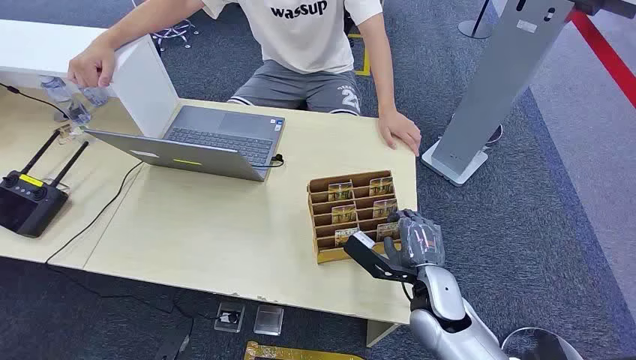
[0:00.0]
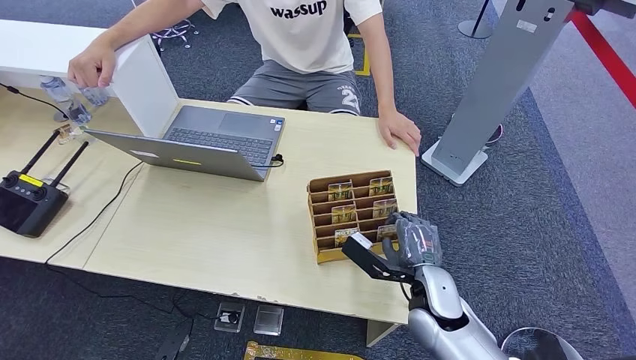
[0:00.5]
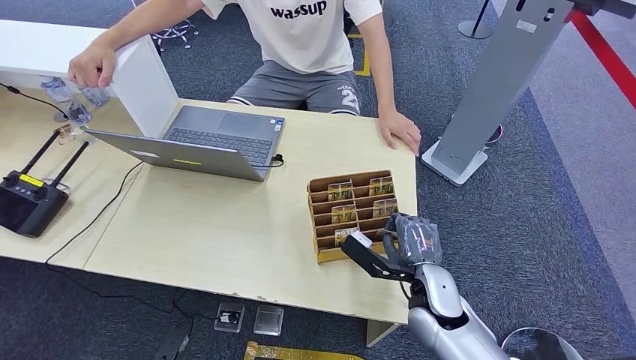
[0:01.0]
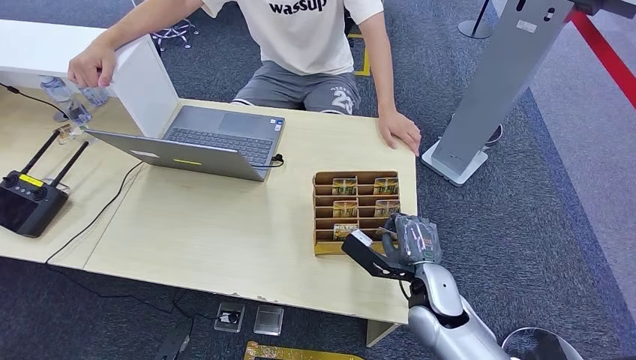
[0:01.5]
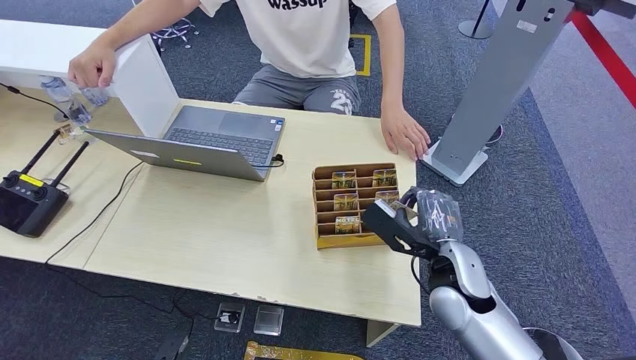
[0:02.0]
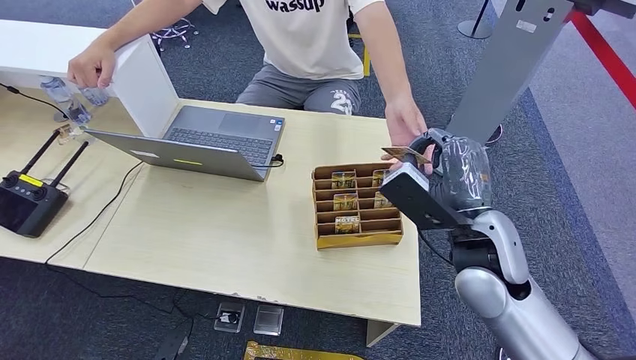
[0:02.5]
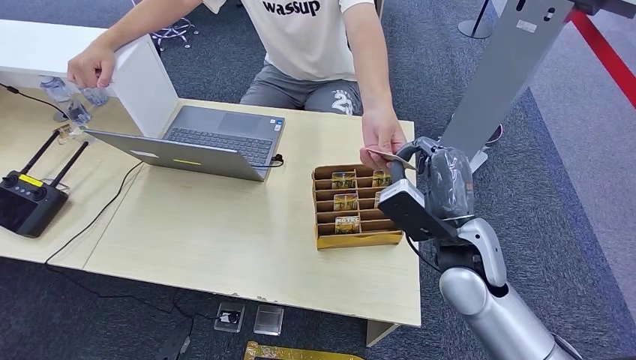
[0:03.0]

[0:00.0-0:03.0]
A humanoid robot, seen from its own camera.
Step, 0:00.0 to 0:02.0: Pick up the key card from the card box.
Step, 0:02.5 to 0:03.0: Hand the key card to the target.
0:01.5 to 0:03.0: The right hand is displaced upward by approximately 15 cm.

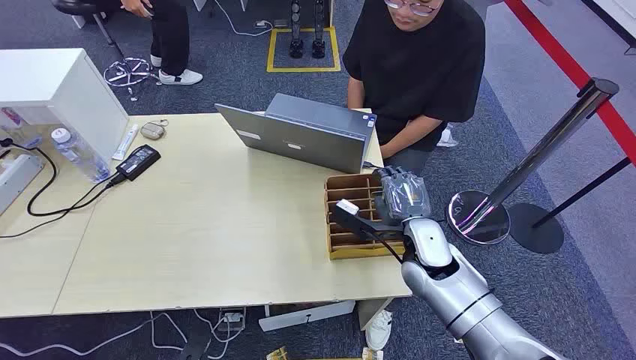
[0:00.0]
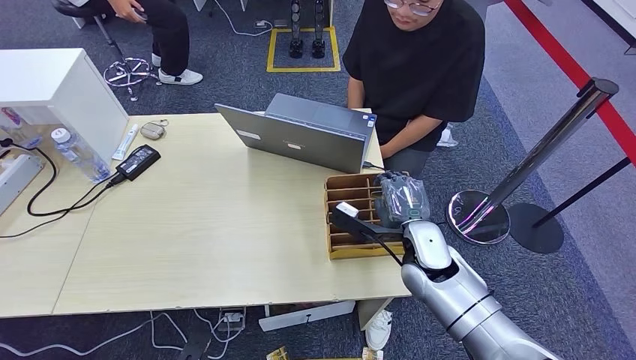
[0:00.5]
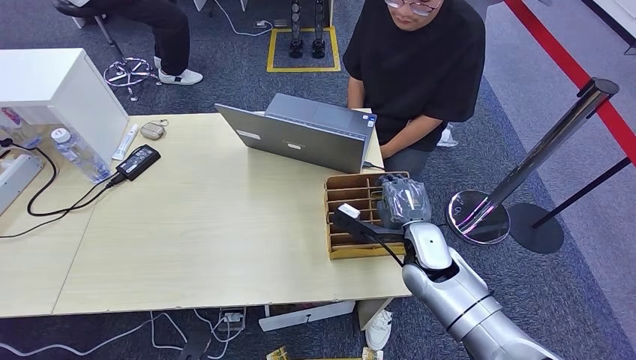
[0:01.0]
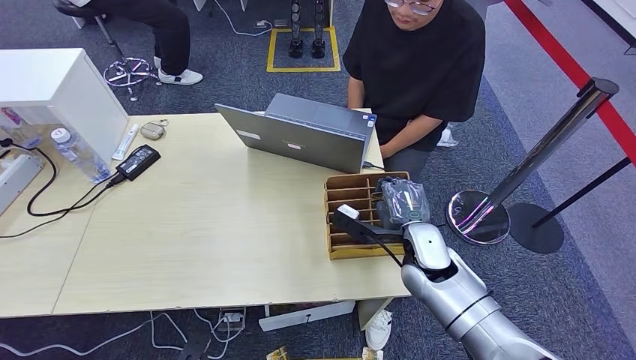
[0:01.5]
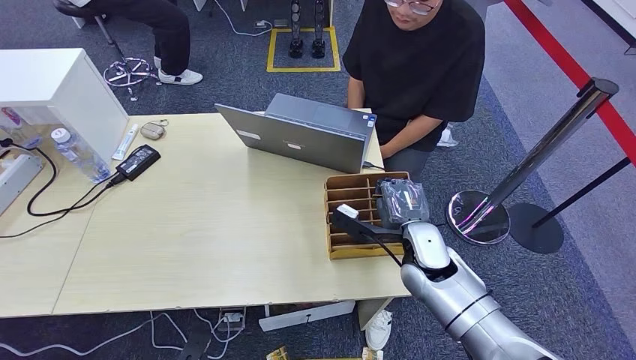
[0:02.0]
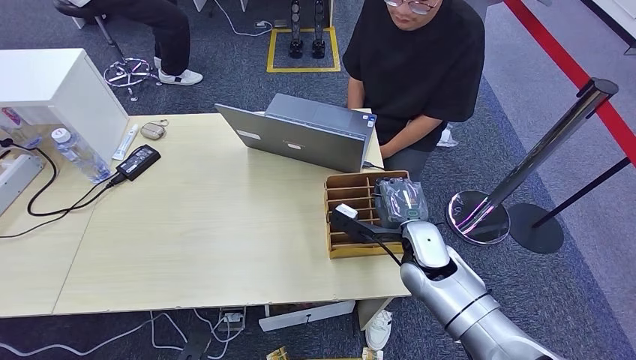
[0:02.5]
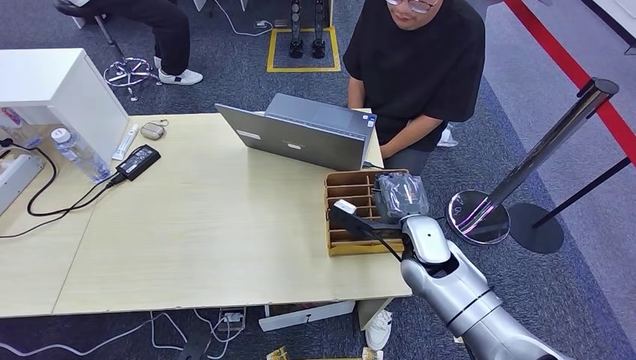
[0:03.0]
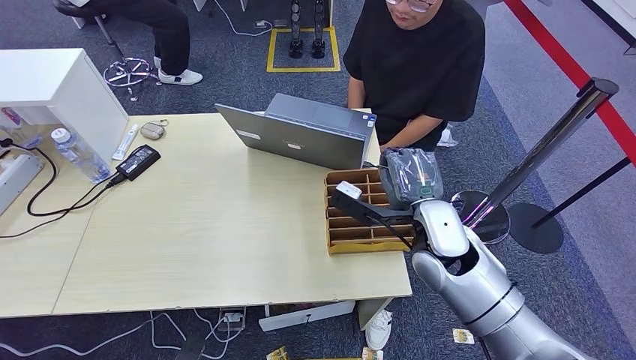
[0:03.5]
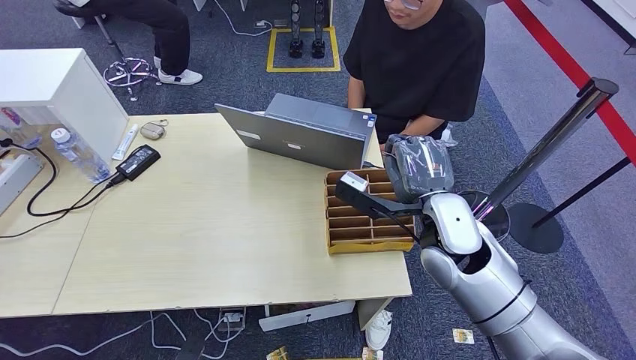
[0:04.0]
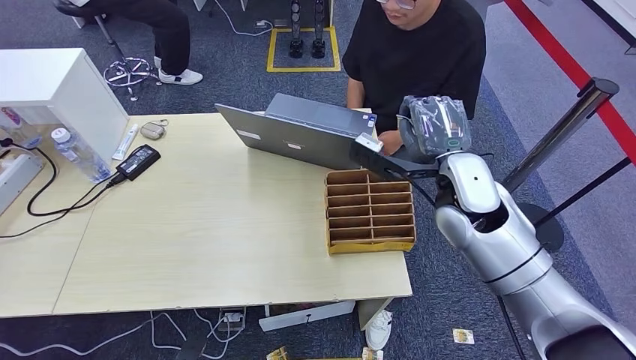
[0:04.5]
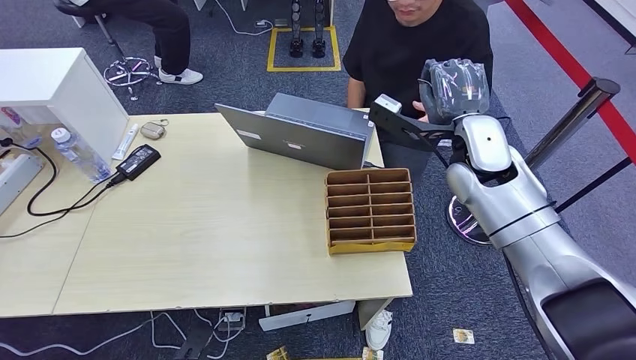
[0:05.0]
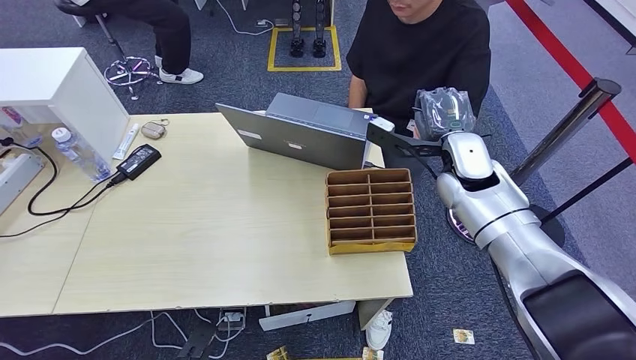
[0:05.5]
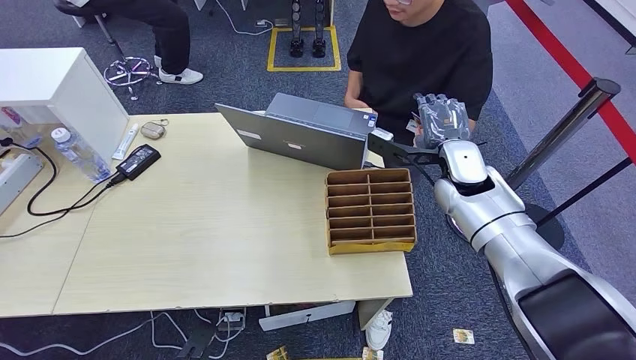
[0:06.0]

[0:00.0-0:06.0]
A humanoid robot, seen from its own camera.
Step, 0:00.0 to 0:03.0: Pick up the key card from the card box.
Step, 0:03.5 to 0:06.0: Hand the key card to the target.
0:02.0 to 0:04.0: The right hand is displaced upward by roughly 10 cm.
0:04.0 to 0:06.0: The right hand goes approximately 15 cm forward and to the right.
